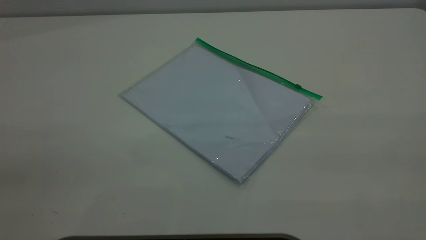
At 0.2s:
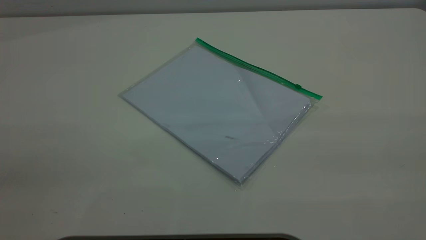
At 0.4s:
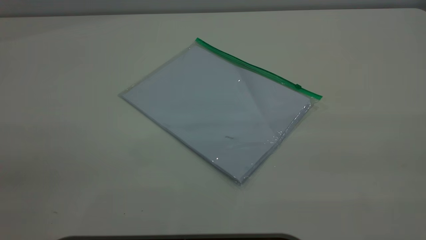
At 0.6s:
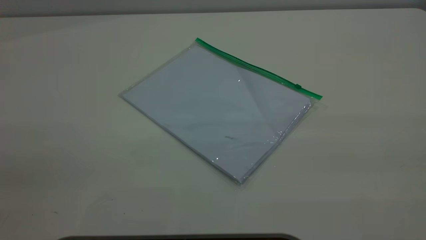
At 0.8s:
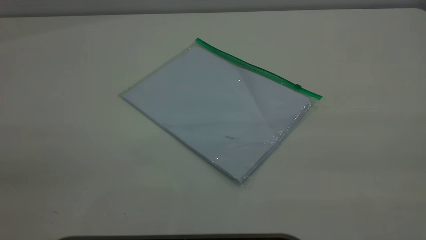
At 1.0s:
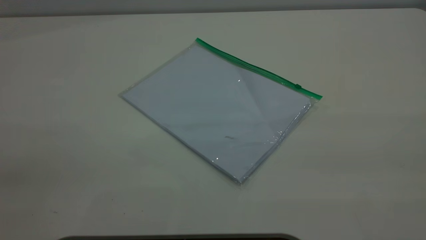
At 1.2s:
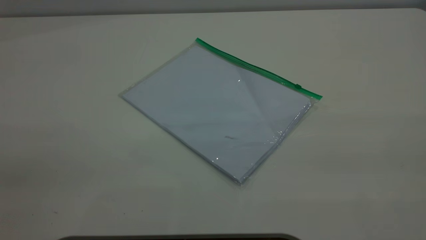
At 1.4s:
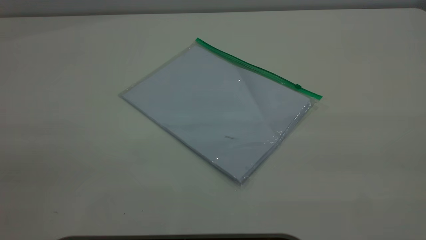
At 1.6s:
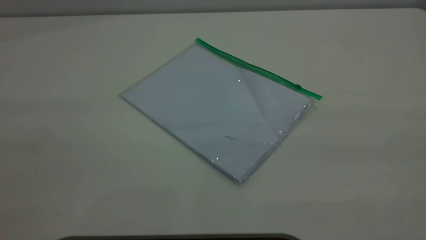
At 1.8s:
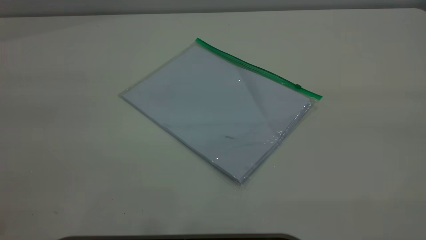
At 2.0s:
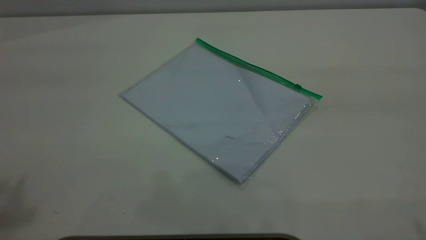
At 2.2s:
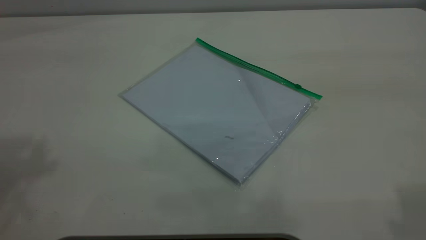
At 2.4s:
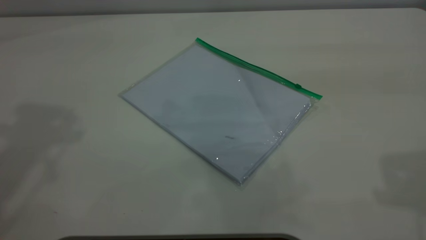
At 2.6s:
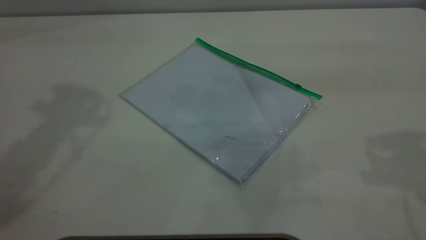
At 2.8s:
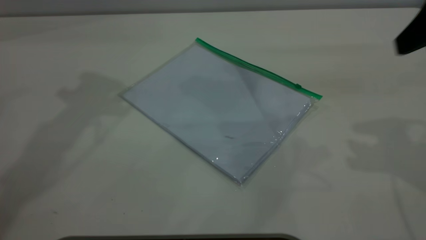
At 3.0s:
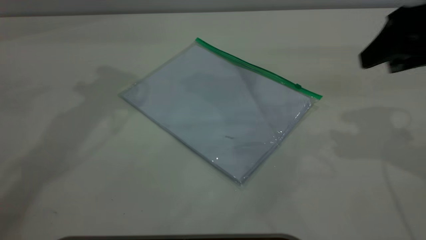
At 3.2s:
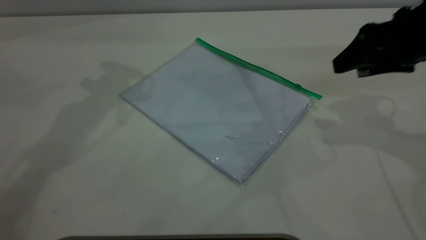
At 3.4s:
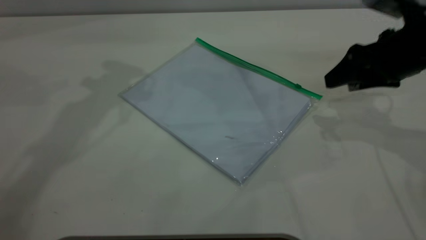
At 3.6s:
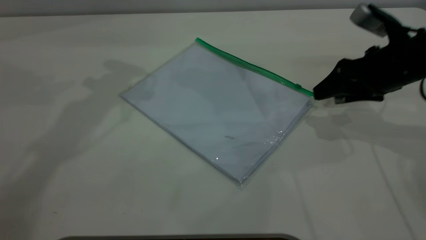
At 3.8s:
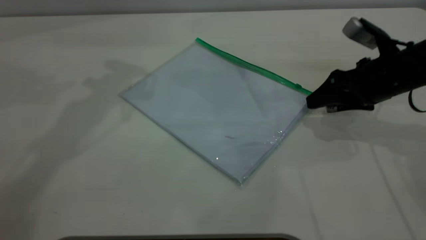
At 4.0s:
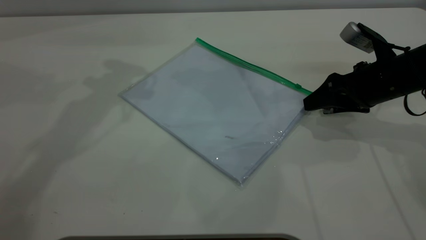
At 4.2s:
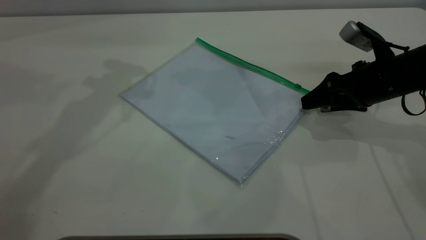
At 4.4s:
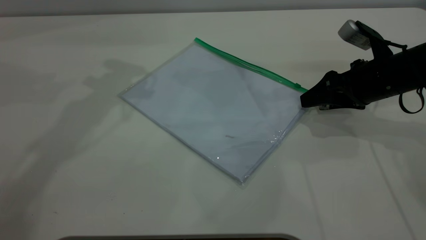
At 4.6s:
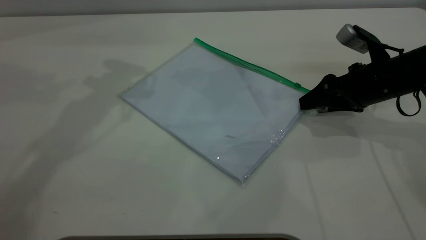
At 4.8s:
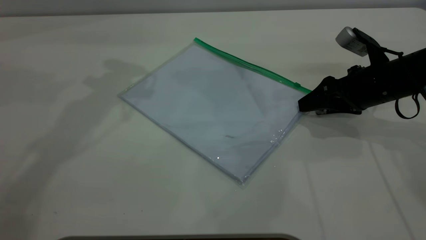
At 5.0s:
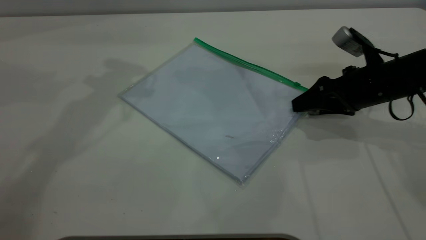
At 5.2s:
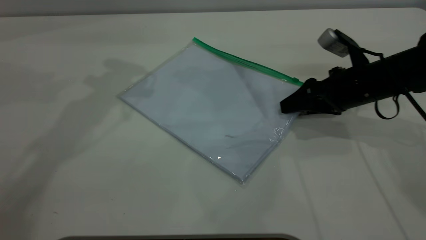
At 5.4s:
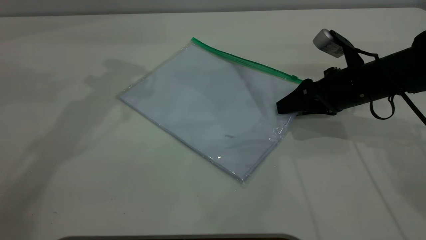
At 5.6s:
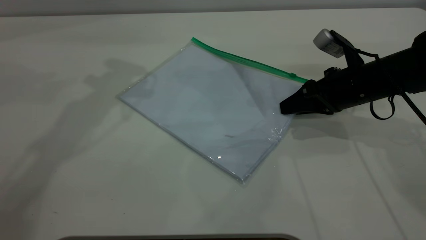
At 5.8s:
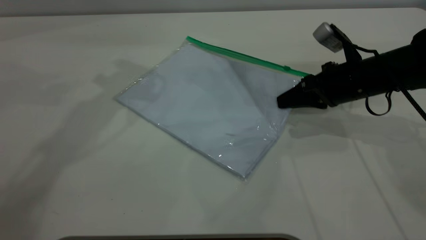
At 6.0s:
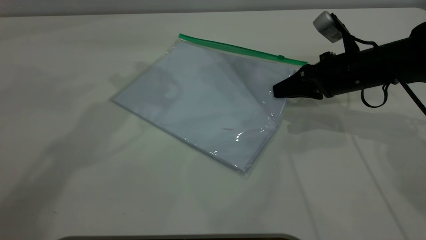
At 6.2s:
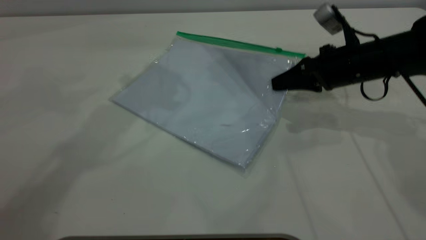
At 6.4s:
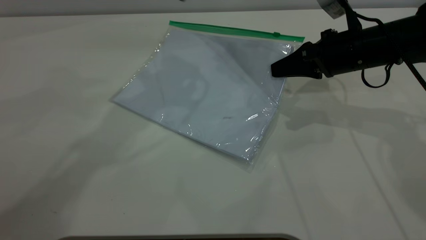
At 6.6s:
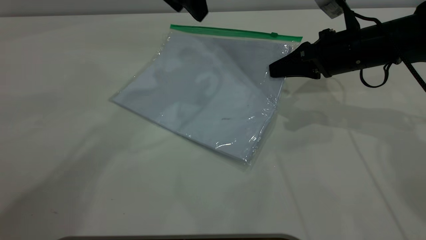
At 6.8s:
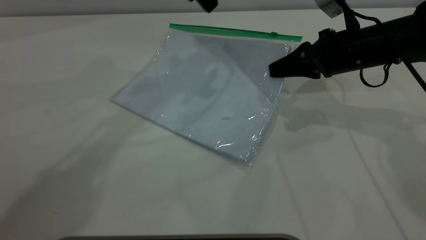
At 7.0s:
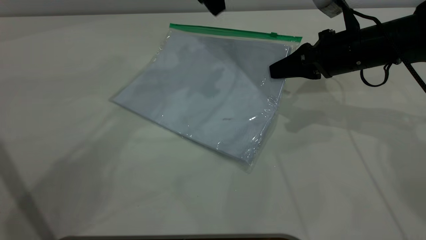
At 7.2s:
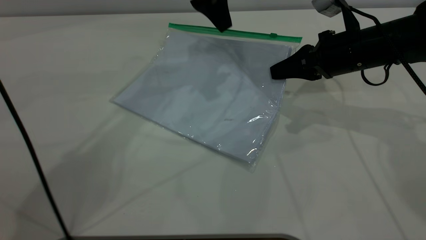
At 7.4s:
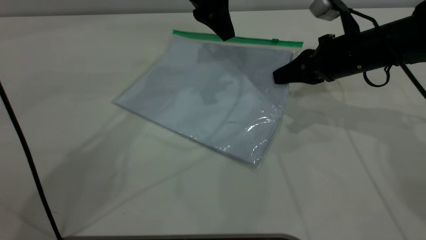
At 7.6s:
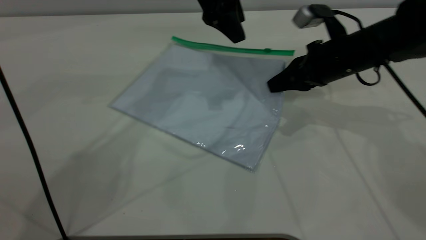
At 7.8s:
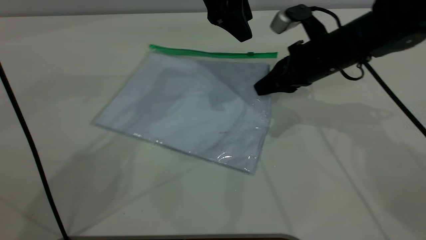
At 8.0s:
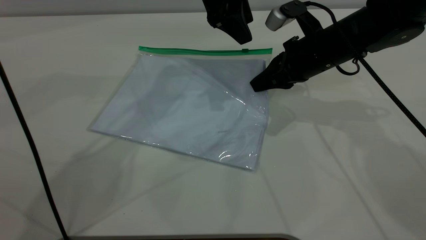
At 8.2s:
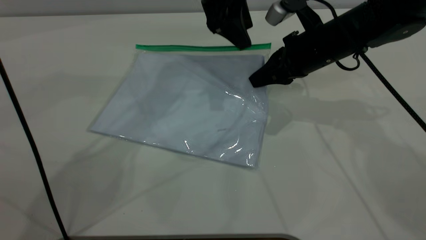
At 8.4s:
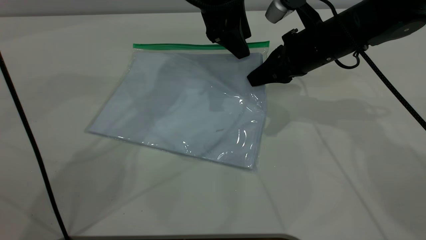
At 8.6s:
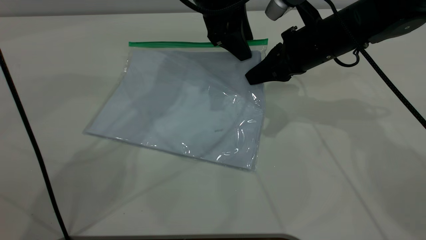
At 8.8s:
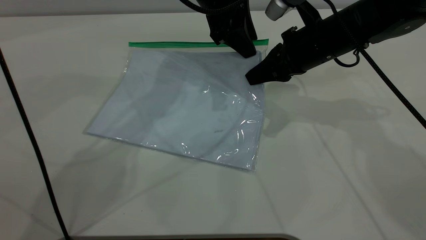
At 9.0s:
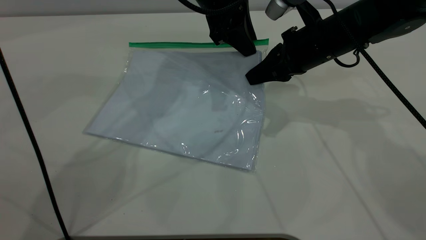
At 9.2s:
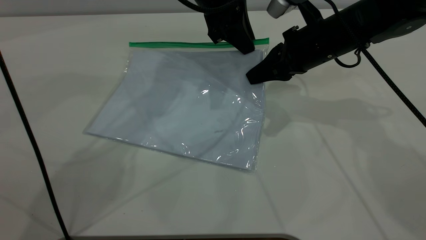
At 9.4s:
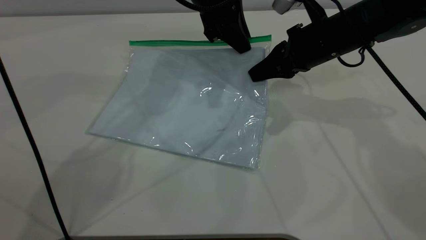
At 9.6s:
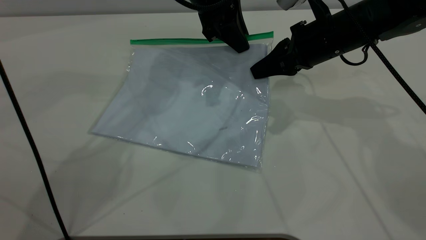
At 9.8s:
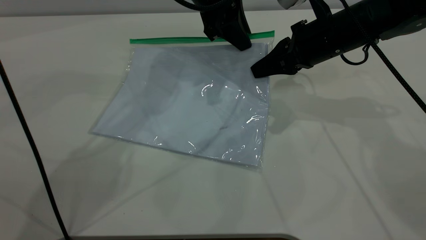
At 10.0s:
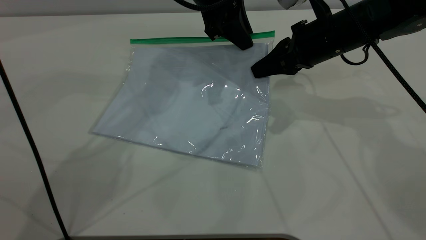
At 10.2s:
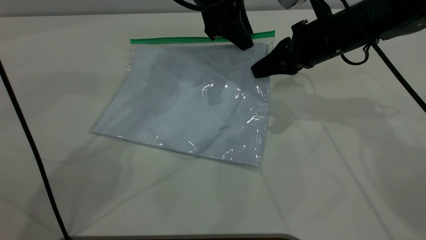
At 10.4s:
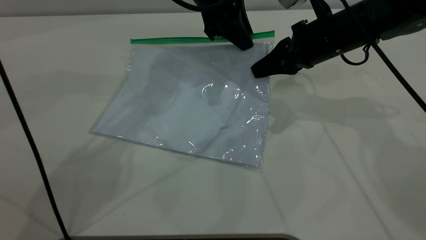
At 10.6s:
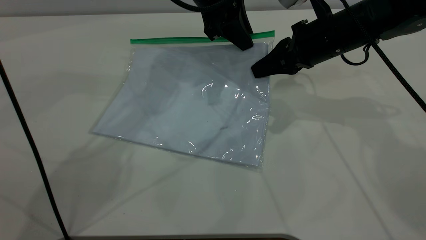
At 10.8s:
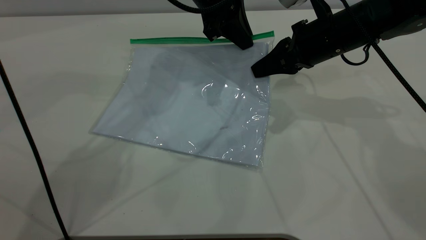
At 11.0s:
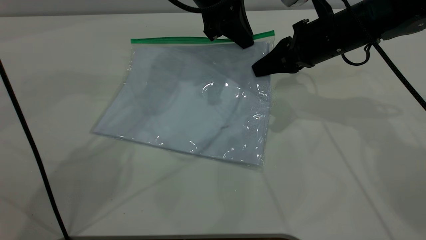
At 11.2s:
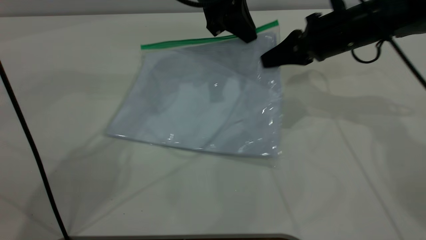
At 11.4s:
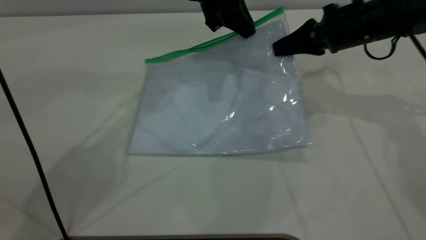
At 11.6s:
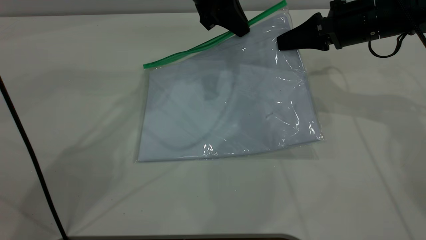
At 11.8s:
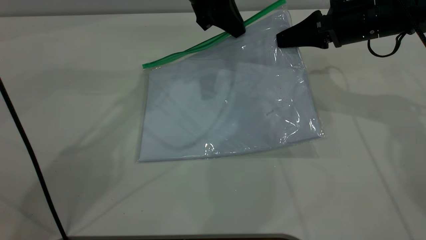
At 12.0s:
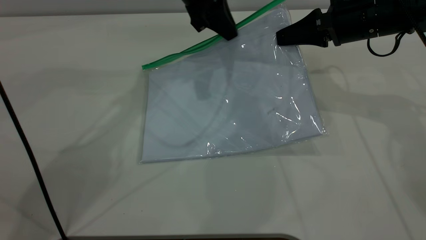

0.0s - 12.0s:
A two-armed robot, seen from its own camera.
Step, 0.0s - 5.8s: Pick up the transparent plastic bag with the right gripper.
1.6s - 3.0s: The right gripper goes about 35 cm forward and downward.
3.0s - 4.4s: The right gripper is displaced downward by some 15 cm.
4.4s - 6.0s: The right gripper closes up.
6.0s - 7.6s: The left gripper travels to the right and downward by about 15 cm.
7.6s - 9.0s: The left gripper closes.
9.0s - 10.4s: There are only small adjustments of the grippers.
10.4s - 12.0s: The right gripper travels to the right by roughly 5 cm.

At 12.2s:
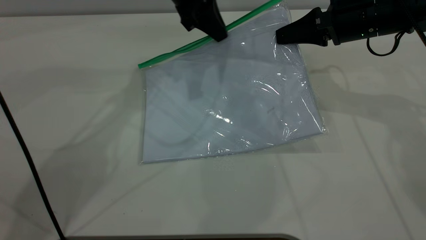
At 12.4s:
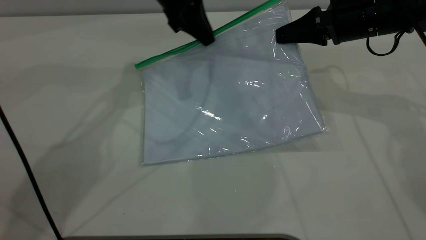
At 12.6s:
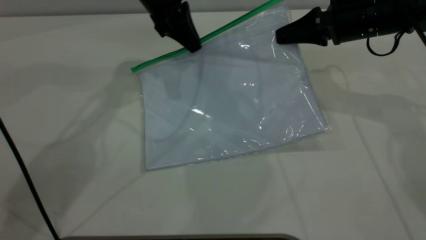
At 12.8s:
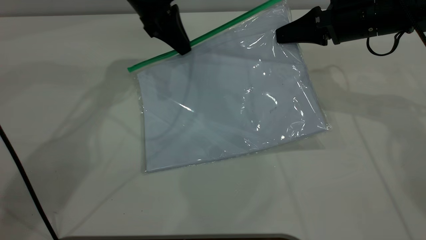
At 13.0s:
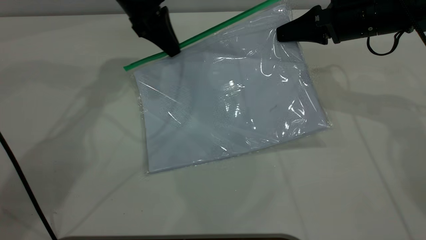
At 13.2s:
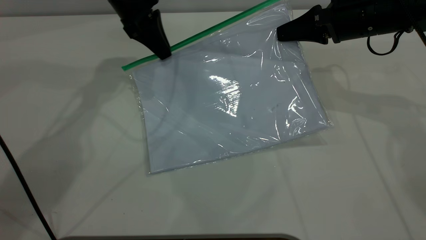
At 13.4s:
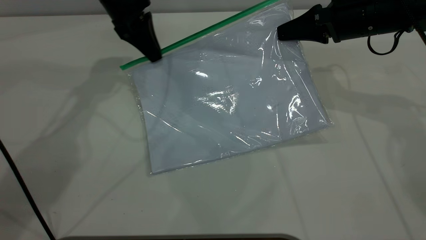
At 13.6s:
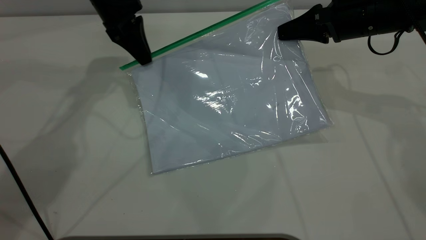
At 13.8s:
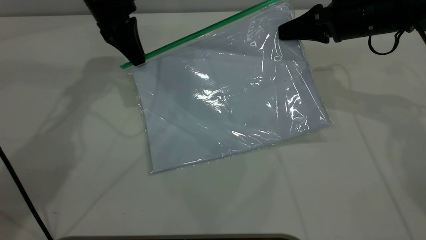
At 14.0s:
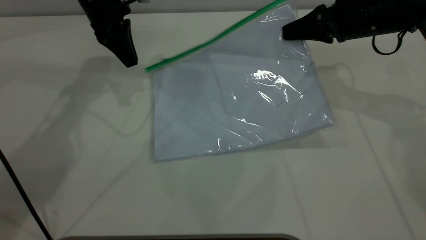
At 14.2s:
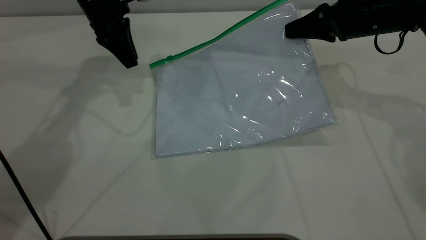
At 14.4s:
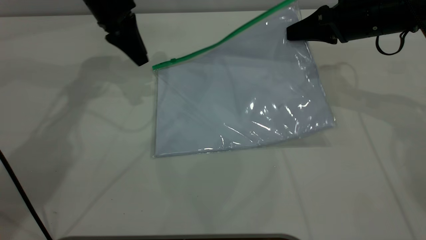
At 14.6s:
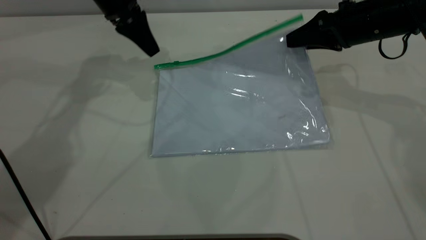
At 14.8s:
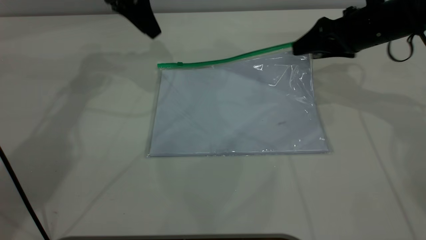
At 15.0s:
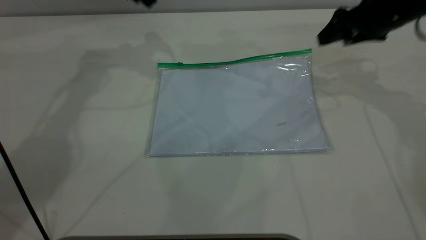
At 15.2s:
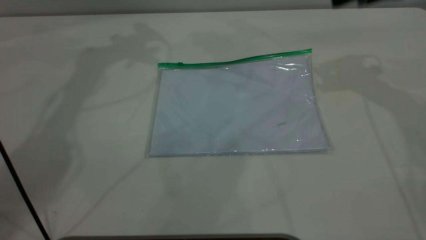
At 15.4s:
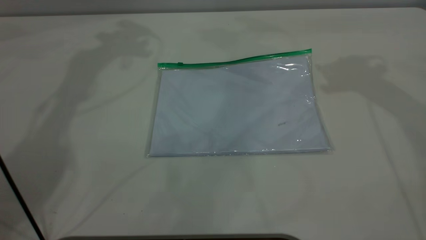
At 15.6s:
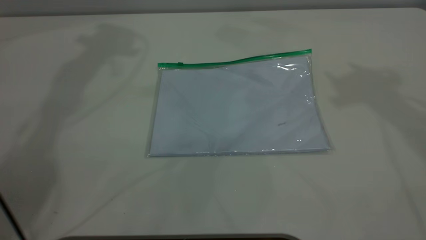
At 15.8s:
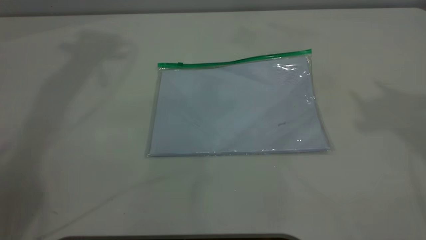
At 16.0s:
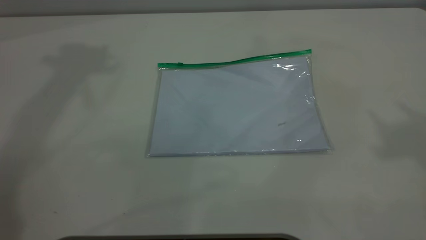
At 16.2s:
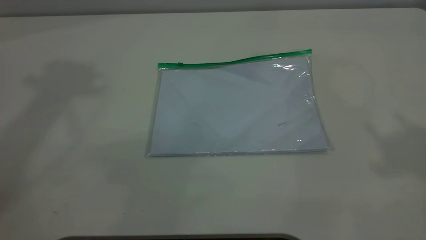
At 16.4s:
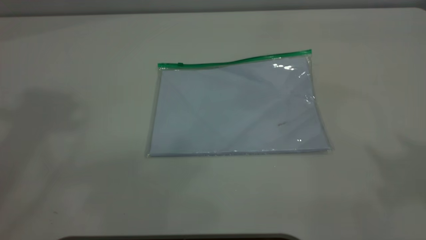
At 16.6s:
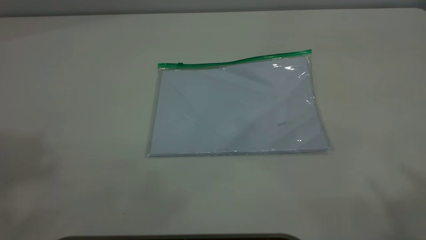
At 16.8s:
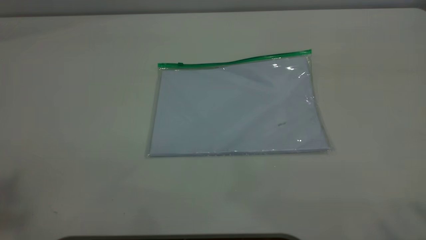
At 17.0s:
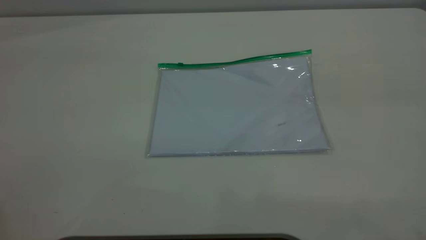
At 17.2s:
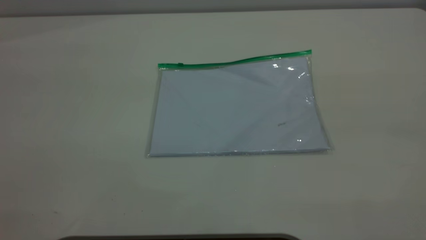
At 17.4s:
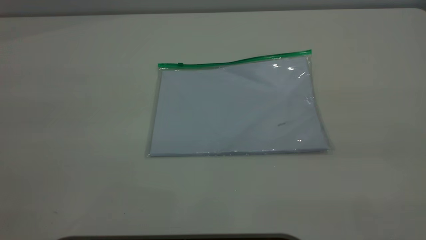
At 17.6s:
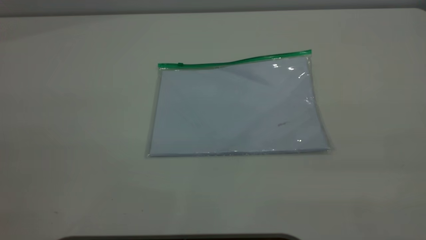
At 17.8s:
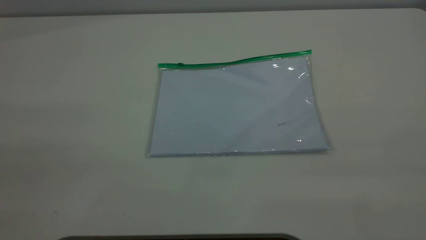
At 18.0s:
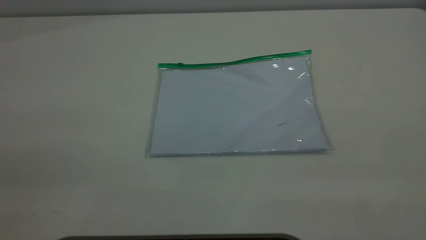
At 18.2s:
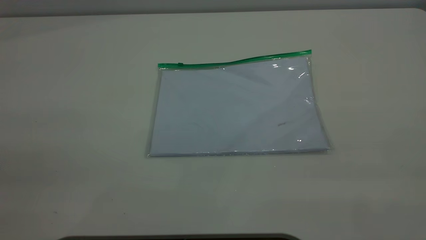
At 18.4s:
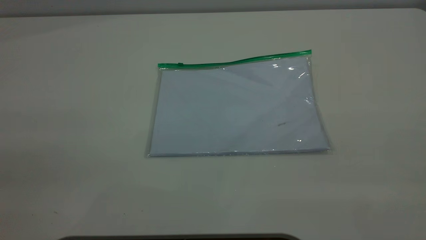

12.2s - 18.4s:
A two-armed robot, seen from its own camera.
Step, 14.0s - 14.8s: Place the transparent plastic bag.
12.2s - 13.8s: The left gripper is displaced to the left by some 10 cm.
13.8s - 15.4s: The grippers both shift upward by roughly 20 cm. The right gripper opens its fingers, while the left gripper opens up.
